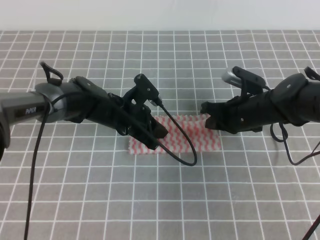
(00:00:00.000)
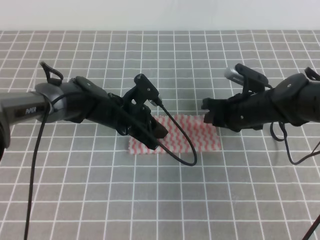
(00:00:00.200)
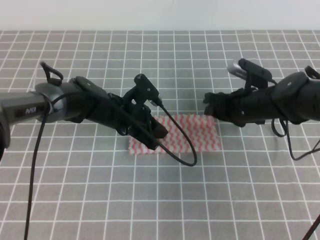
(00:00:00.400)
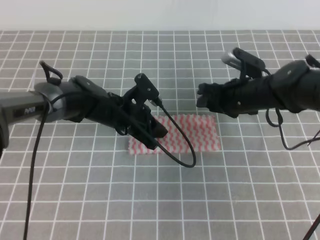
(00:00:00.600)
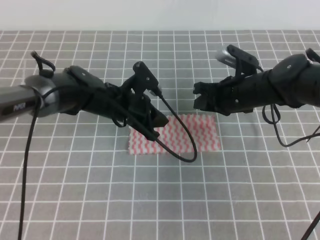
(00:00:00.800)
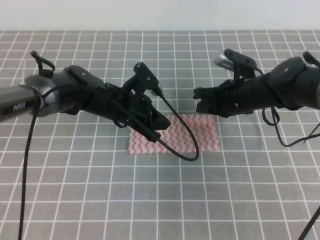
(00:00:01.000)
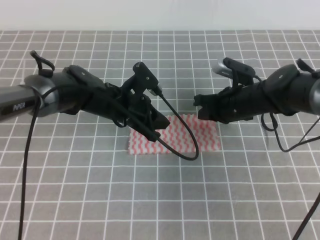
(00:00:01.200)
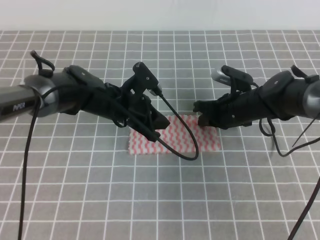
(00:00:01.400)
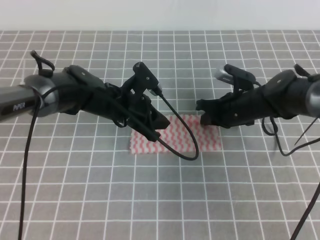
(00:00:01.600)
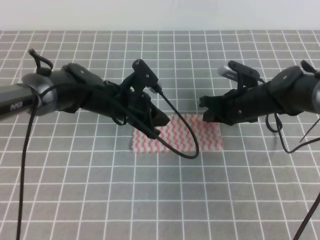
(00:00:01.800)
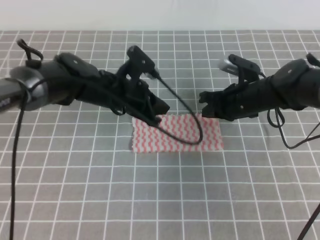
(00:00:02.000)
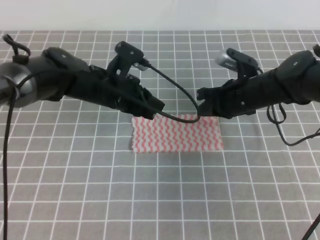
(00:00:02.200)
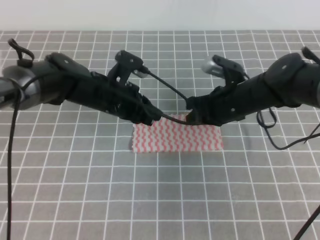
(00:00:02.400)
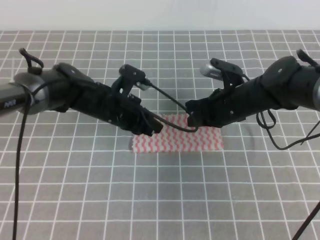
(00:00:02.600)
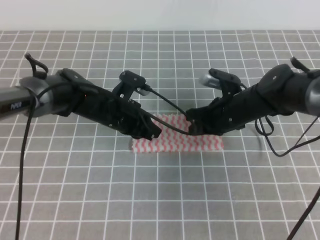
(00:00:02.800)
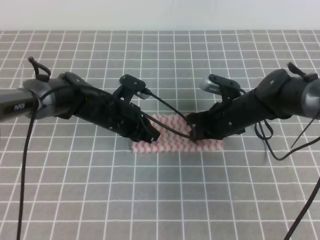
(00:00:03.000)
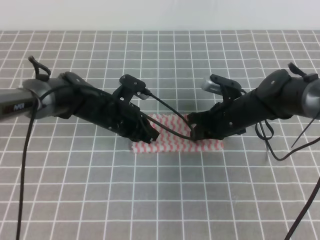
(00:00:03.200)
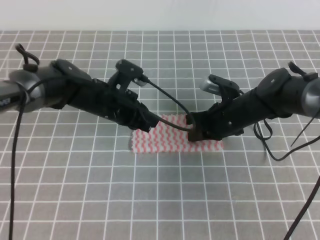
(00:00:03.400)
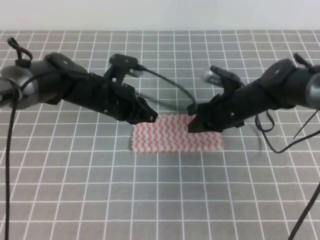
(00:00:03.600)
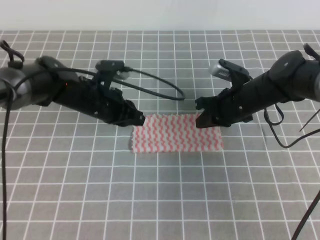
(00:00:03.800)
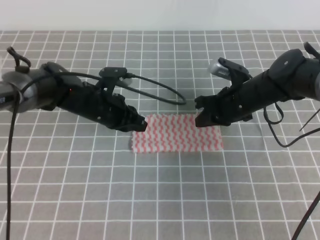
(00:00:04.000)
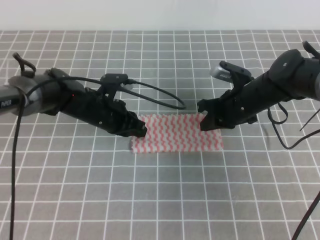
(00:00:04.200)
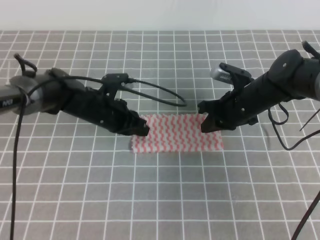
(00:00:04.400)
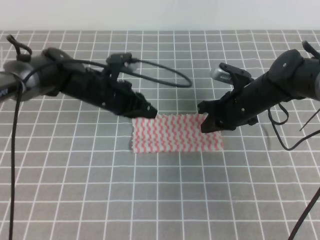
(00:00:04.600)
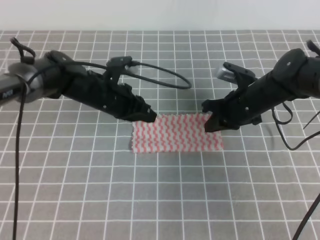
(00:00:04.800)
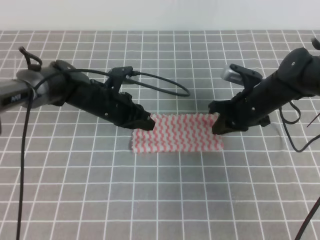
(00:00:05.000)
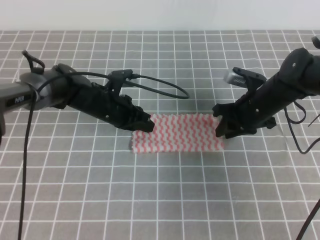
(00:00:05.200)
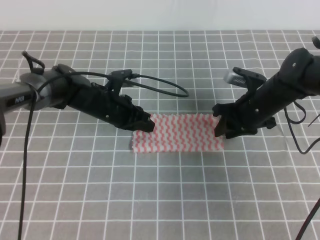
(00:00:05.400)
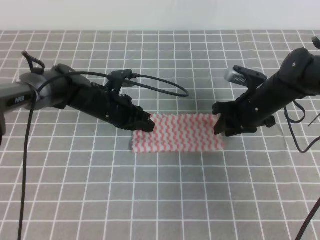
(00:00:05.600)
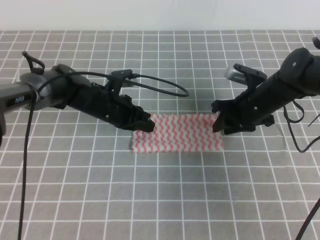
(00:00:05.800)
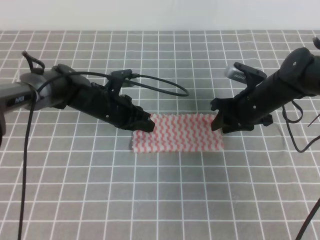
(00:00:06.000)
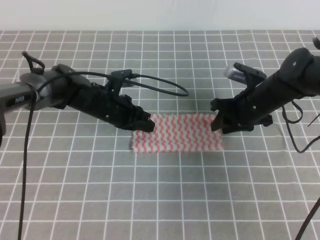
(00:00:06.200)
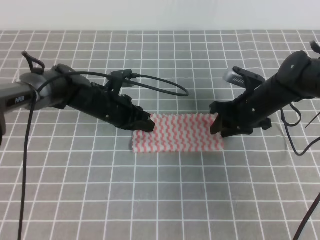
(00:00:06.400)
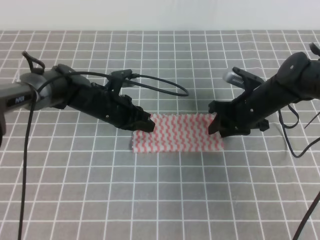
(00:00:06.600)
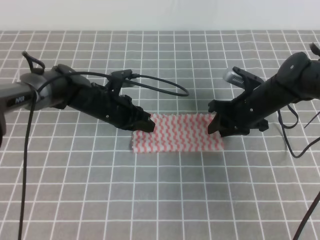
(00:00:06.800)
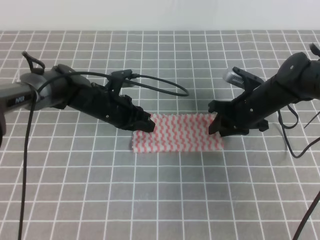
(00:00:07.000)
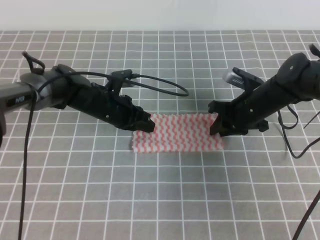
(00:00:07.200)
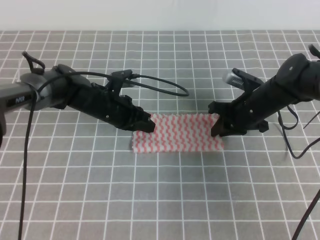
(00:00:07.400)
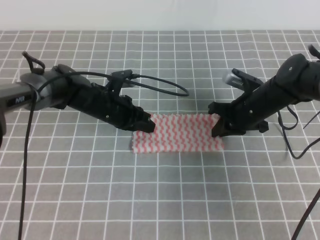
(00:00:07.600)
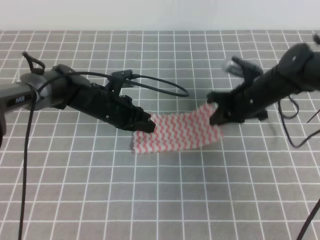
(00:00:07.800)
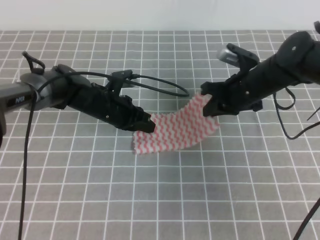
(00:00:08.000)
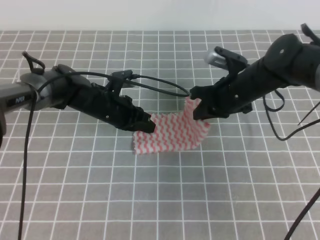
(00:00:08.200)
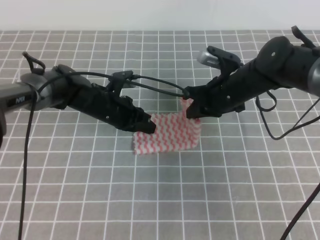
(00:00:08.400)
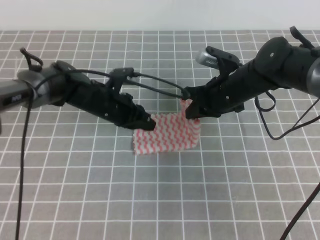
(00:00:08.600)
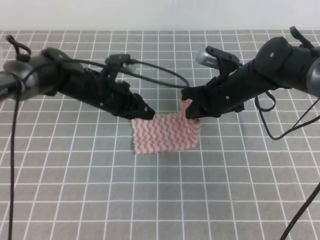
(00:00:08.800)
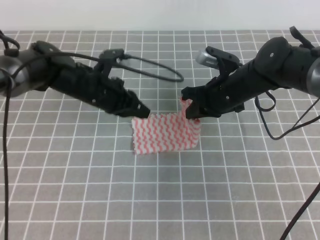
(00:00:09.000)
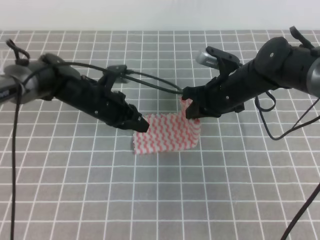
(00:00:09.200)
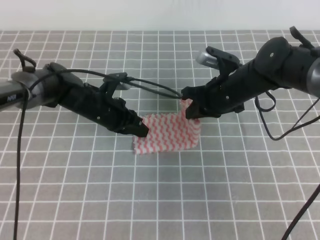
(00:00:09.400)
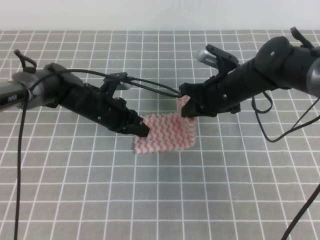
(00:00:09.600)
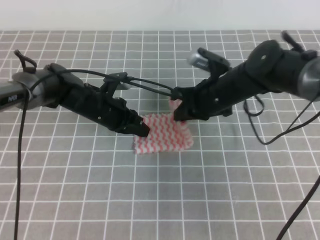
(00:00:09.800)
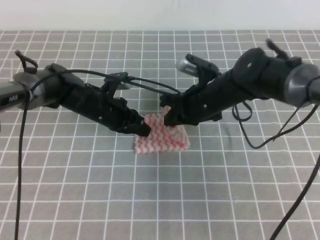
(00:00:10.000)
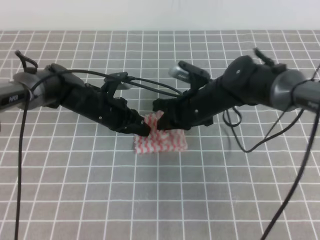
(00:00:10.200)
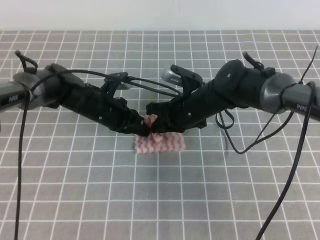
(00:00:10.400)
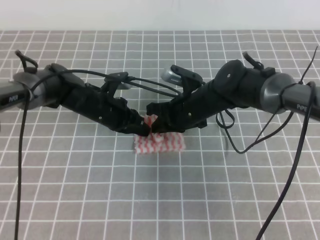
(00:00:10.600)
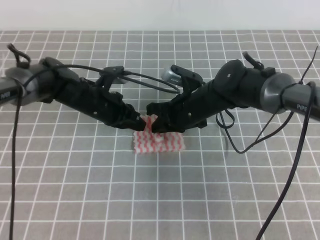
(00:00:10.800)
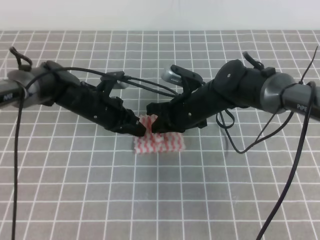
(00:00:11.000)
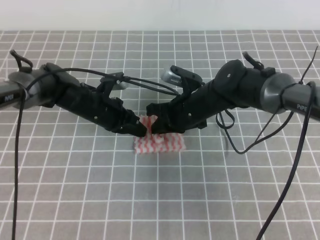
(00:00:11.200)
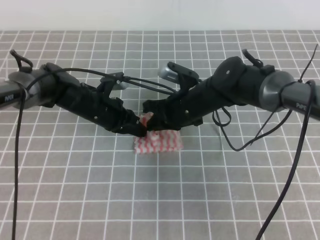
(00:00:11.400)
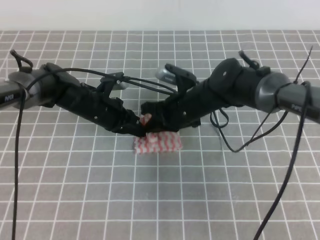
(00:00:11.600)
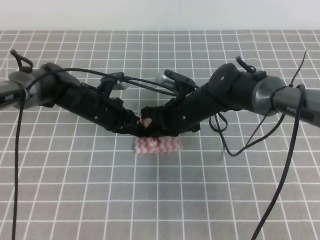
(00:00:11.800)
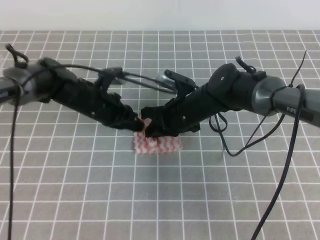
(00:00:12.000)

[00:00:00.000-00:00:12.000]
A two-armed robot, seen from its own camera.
00:00:00.000 to 00:00:01.600: The right gripper opens, then closes again.
00:00:01.600 to 00:00:03.000: There are only small adjustments of the grippers.
00:00:03.000 to 00:00:04.400: The grippers stay close to where they were, moving slightly.
00:00:04.400 to 00:00:06.000: The right gripper opens up.
00:00:06.000 to 00:00:07.600: The right gripper closes.
00:00:07.600 to 00:00:09.000: The right gripper shifts approximately 5 cm to the left.
00:00:09.000 to 00:00:10.400: The right gripper shifts some 5 cm to the left.
00:00:10.400 to 00:00:12.000: The grippers make only small movements.

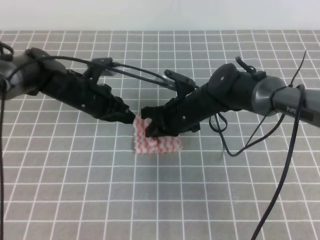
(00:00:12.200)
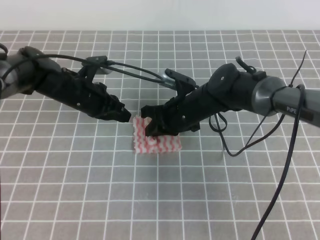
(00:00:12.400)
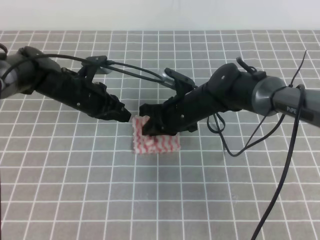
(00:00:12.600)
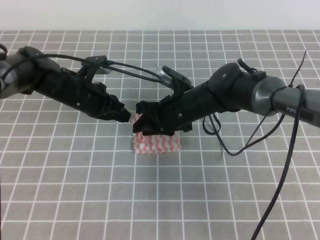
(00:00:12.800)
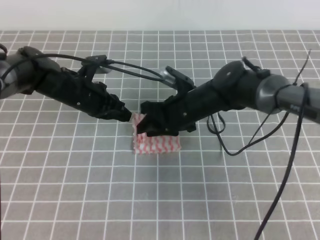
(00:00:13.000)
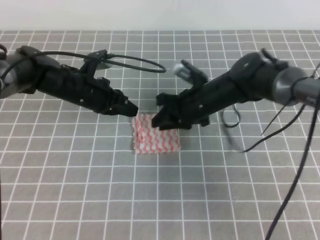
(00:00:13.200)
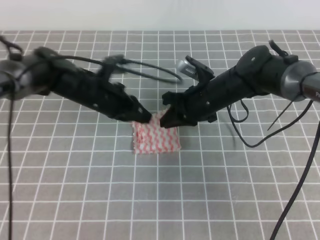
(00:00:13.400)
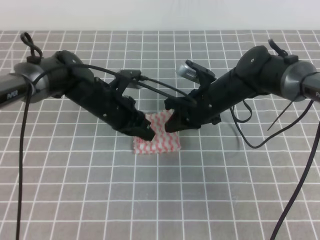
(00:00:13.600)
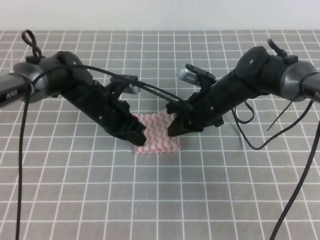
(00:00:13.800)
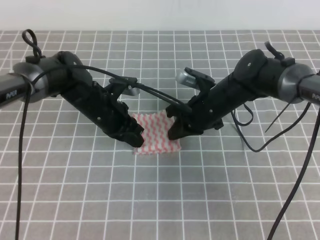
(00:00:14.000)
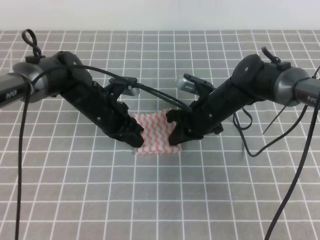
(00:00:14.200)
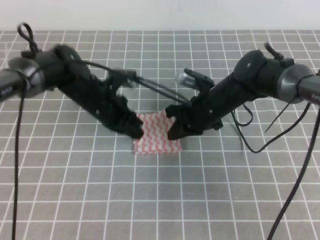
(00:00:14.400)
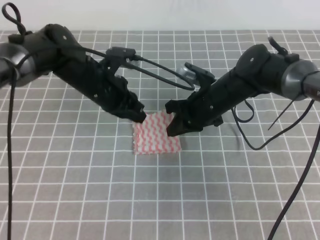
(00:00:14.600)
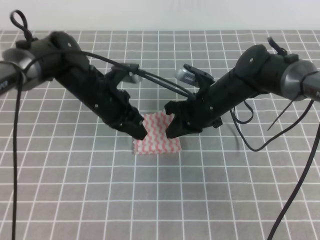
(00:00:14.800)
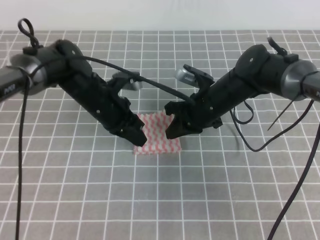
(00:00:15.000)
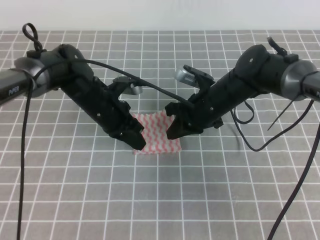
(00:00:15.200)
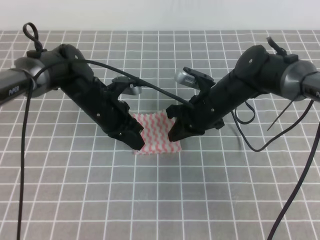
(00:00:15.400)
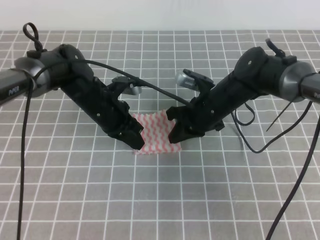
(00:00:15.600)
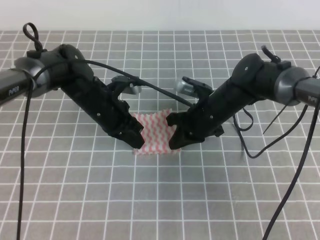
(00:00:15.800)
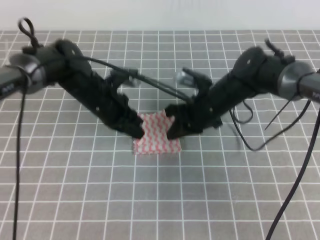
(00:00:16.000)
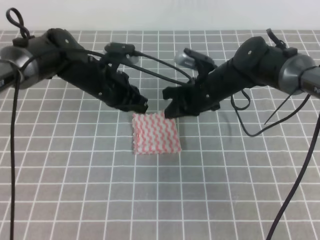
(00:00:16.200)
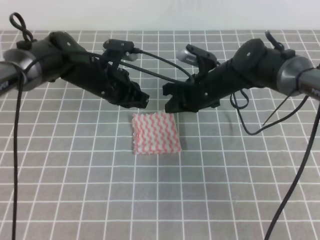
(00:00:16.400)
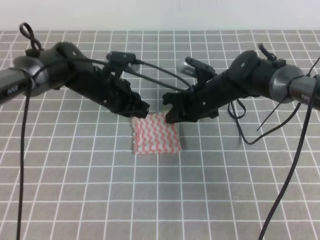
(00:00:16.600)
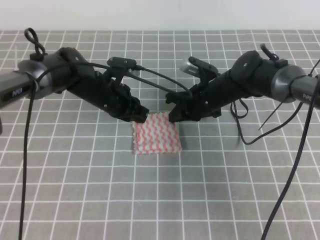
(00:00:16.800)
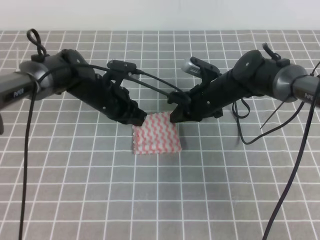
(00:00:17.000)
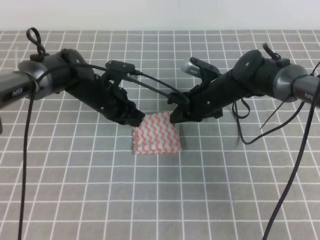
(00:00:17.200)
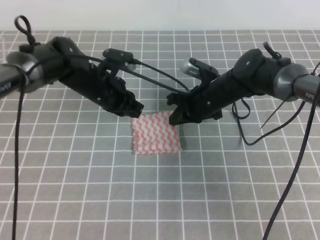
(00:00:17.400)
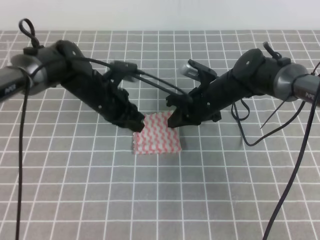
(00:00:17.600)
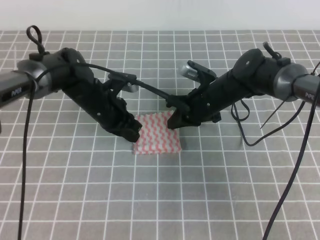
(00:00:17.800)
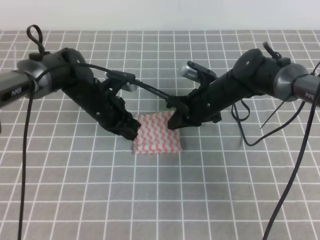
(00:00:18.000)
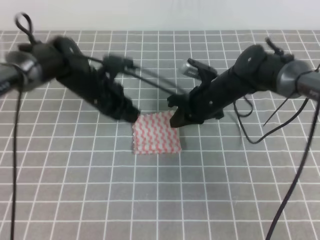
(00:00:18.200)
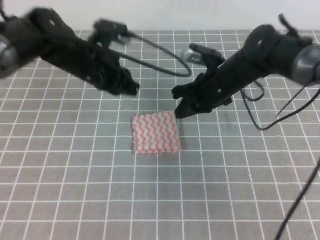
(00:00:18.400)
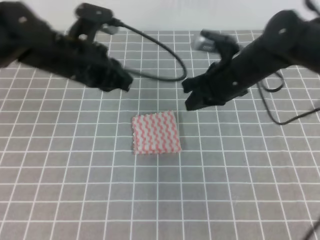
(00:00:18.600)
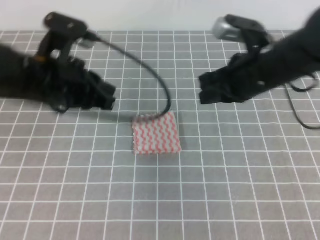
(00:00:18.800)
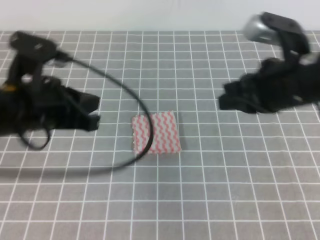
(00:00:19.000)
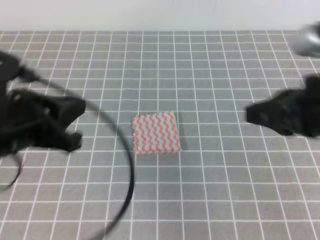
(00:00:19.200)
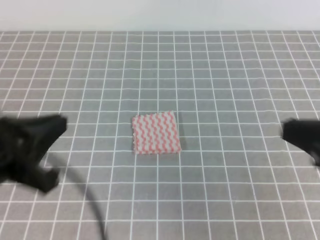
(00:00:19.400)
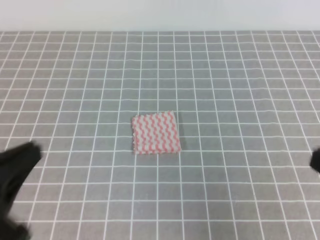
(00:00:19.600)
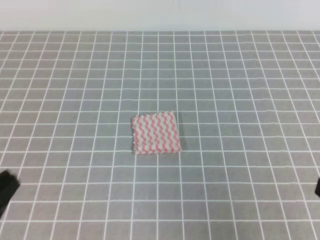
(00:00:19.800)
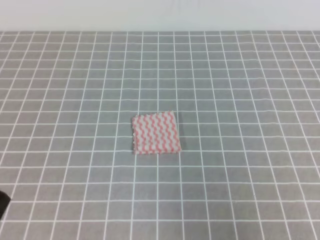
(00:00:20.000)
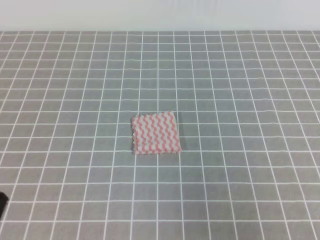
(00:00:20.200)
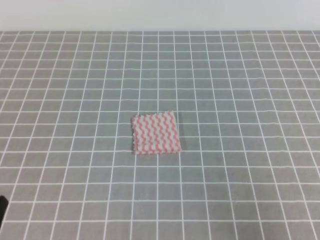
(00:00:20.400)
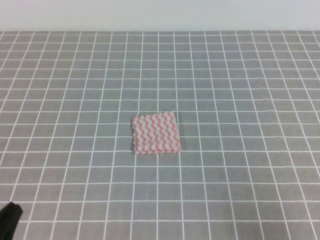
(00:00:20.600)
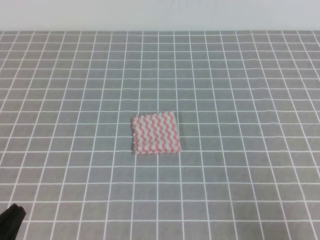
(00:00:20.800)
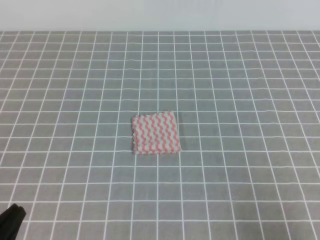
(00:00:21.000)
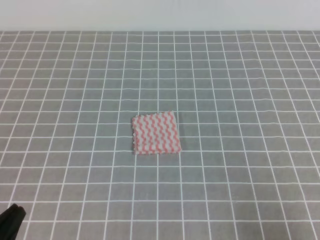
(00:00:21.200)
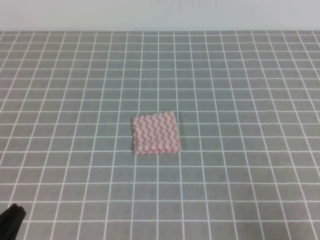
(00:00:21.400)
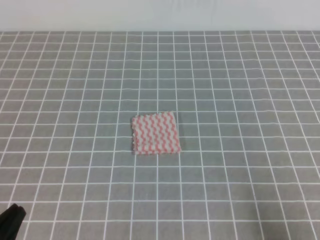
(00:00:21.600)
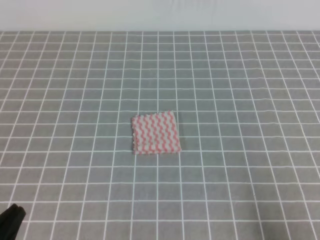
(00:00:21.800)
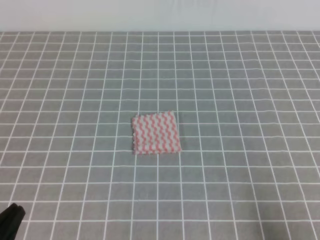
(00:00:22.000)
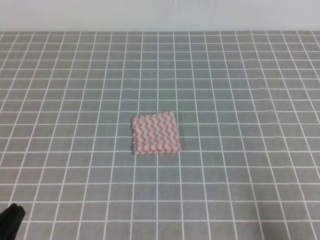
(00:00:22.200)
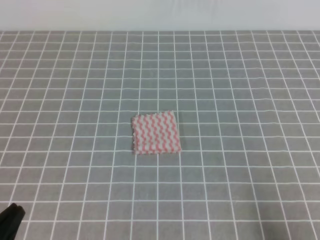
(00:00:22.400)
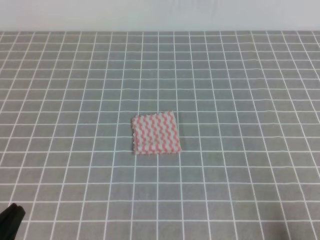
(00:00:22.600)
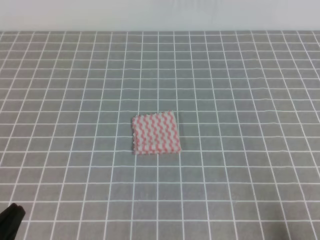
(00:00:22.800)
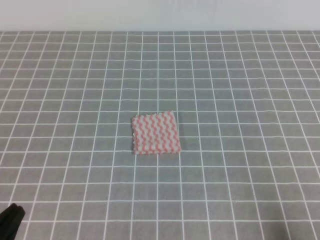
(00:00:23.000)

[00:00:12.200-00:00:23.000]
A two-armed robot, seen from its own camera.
00:00:12.200 to 00:00:13.800: The right gripper opens, then closes again.
00:00:13.800 to 00:00:15.200: There are only small adjustments of the grippers.
00:00:16.800 to 00:00:18.400: The right gripper is displaced upward by some 5 cm. The left gripper shifts approximately 10 cm upward.
00:00:18.400 to 00:00:20.000: The left gripper goes some 35 cm backward. The right gripper goes approximately 35 cm backward and to the right.
00:00:20.000 to 00:00:21.400: Both grippers move downward, some 10 cm.
